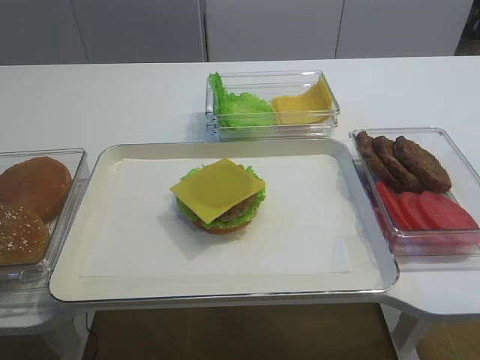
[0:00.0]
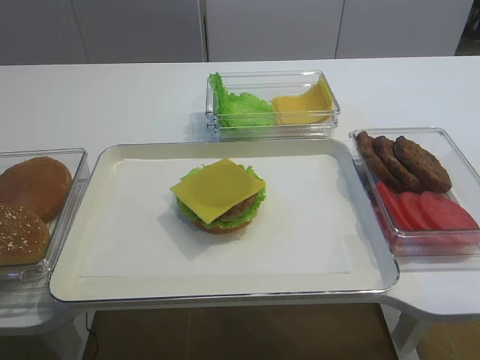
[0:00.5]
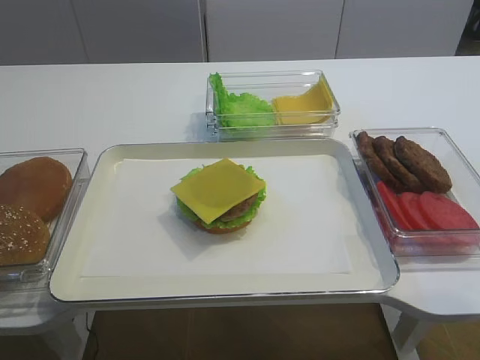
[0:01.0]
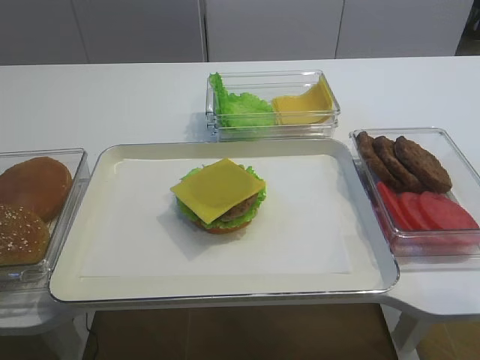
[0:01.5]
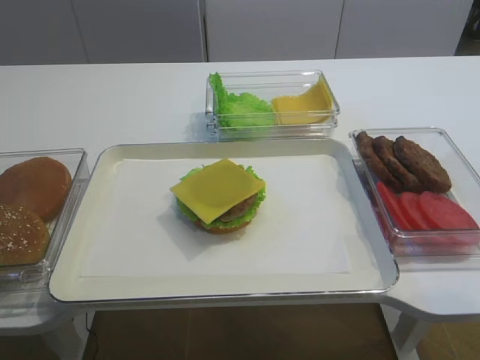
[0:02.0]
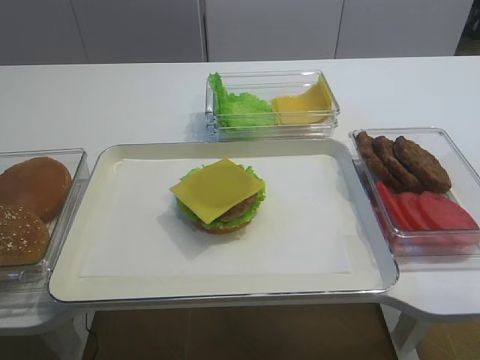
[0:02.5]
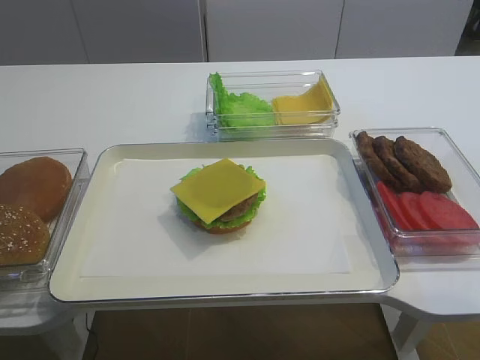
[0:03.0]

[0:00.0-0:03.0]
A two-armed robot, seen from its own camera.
0:01.5 to 0:03.0: The two grippers keep their place.

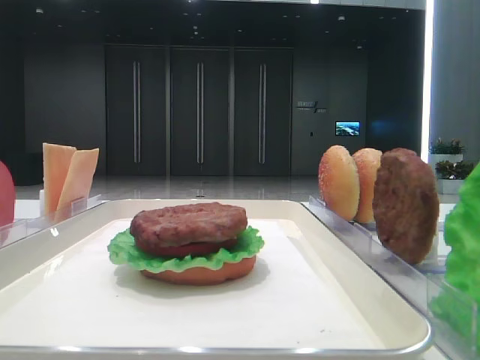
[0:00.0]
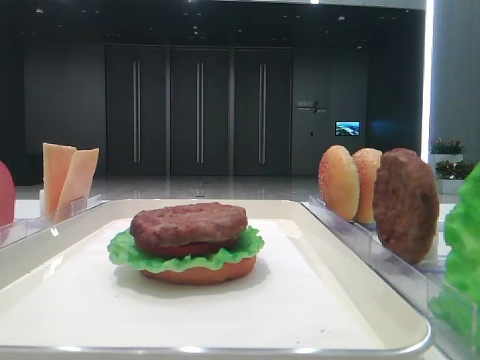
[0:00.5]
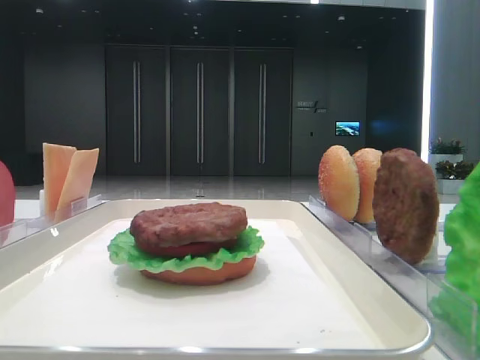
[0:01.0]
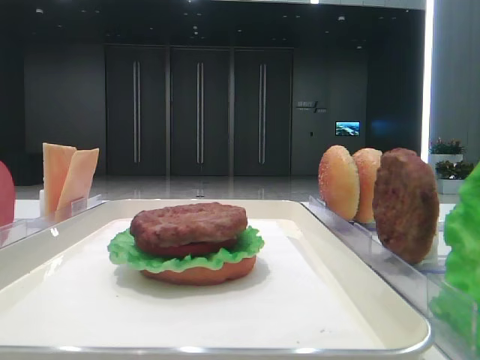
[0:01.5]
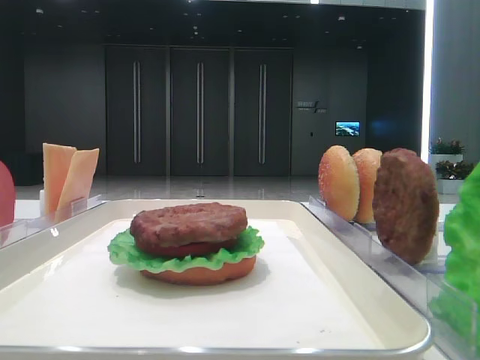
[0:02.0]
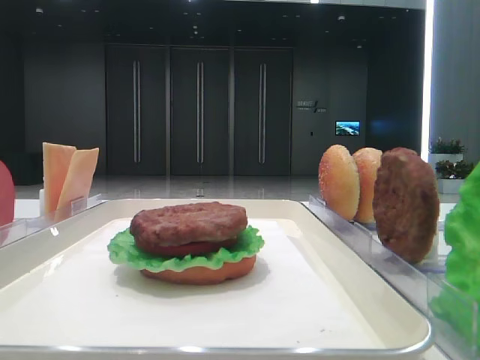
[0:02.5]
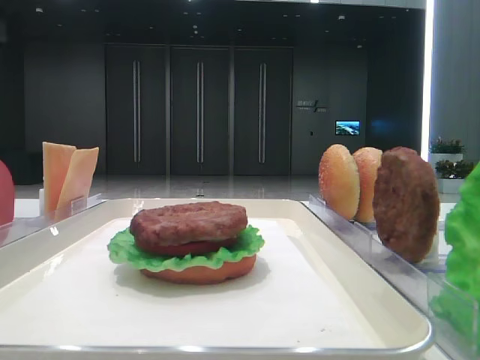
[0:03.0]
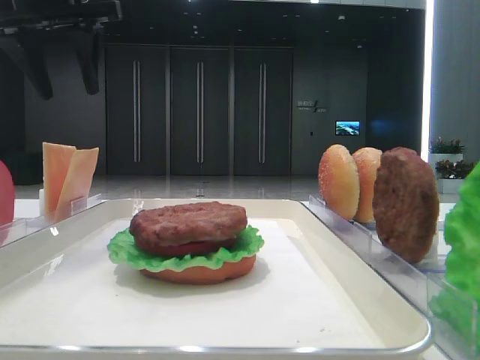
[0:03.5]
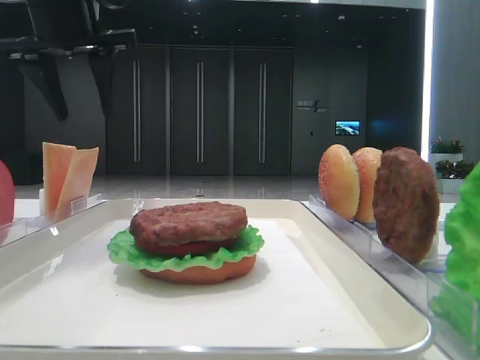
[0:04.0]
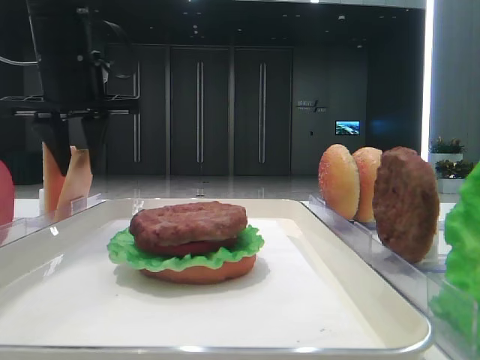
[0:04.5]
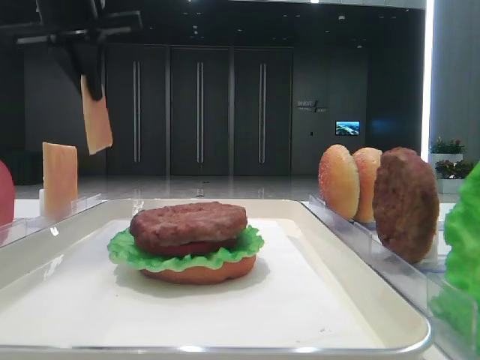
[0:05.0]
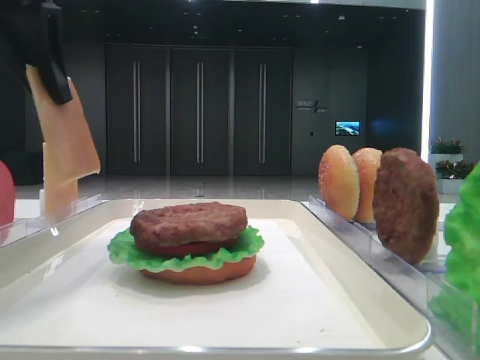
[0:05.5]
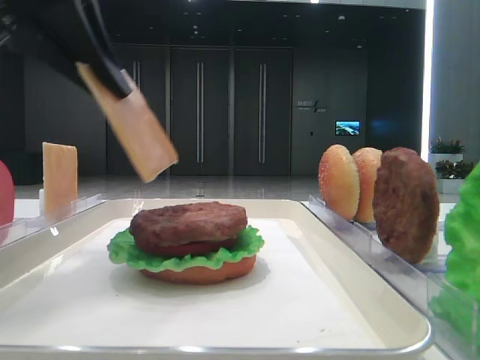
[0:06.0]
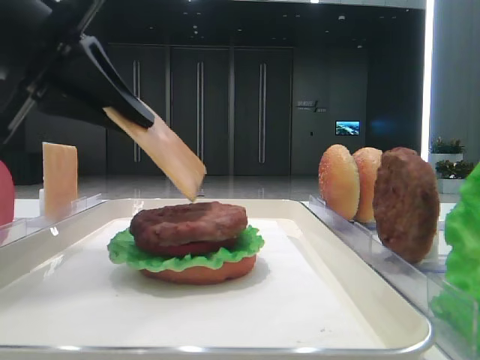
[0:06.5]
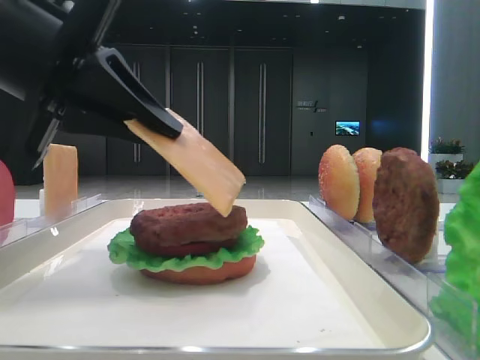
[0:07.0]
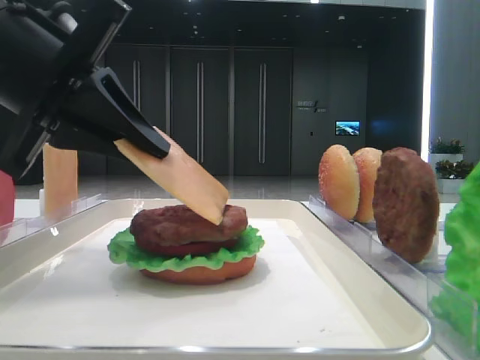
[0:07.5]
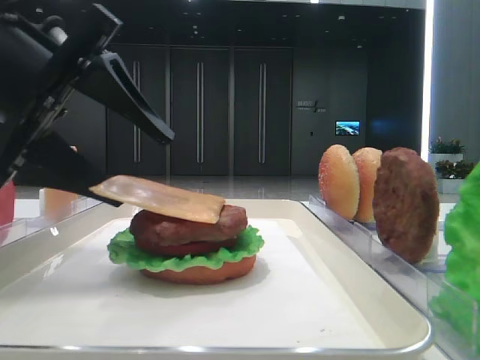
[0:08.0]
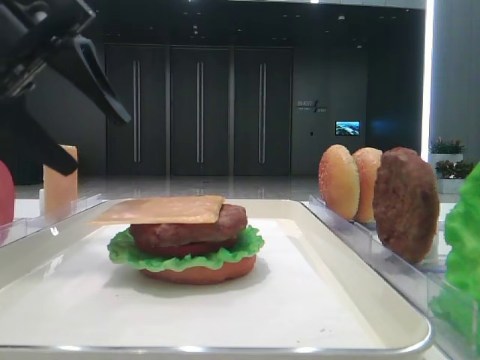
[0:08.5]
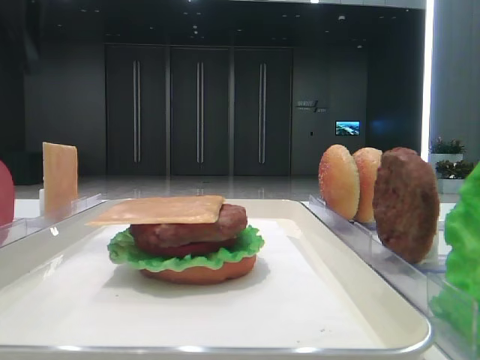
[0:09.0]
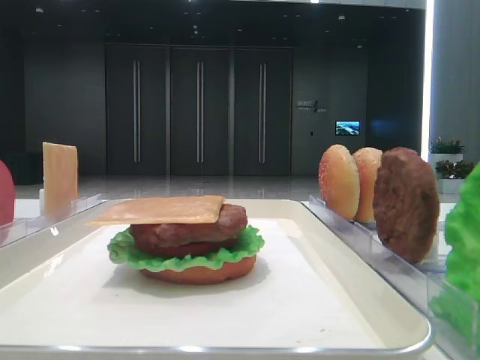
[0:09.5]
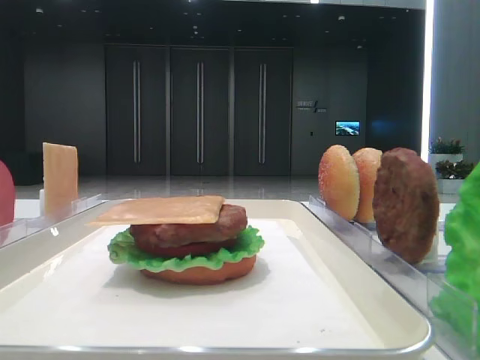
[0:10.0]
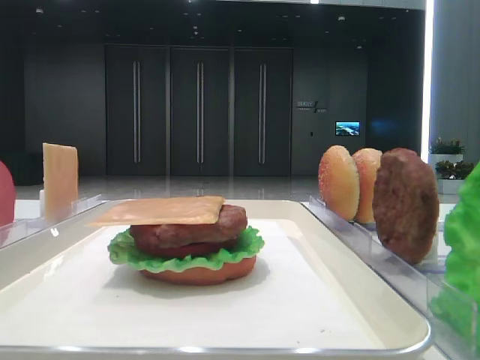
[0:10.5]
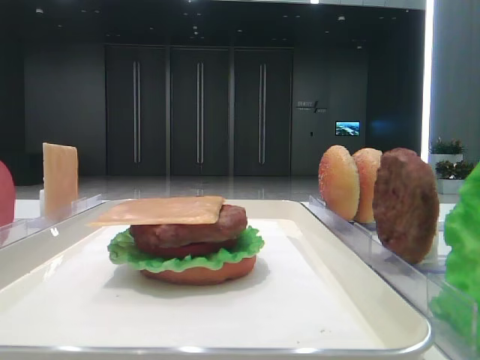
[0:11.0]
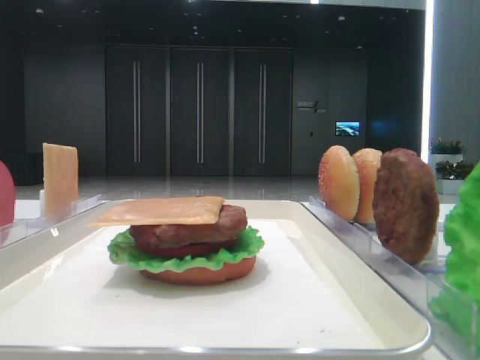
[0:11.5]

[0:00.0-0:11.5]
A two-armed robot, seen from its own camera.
Step, 0:00.0 to 0:04.5: Pick up the cheese slice with the left hand.
Step, 0:05.0 to 0:08.0: Place the cheese slice on the patty with the left hand.
0:02.0 to 0:04.0: The left gripper shifts about 40 cm forward.
0:04.0 to 0:06.0: The left gripper travels backward by about 15 cm, and closes up.
0:06.0 to 0:07.5: The left gripper moves downward, approximately 10 cm.
0:07.5 to 0:09.5: The left gripper is displaced to the left, upward and forward by about 25 cm, and opens its fingers.

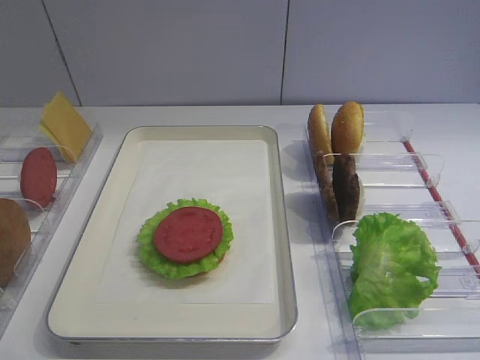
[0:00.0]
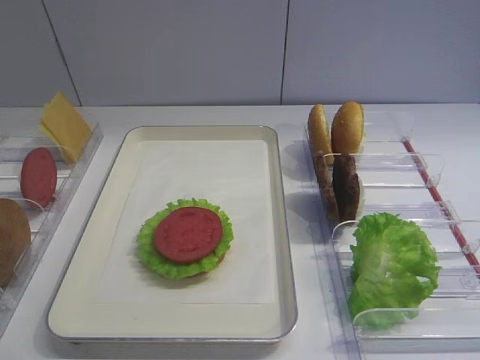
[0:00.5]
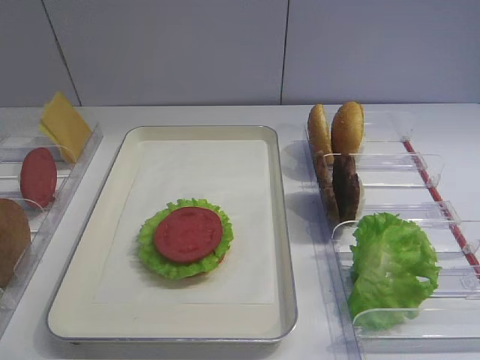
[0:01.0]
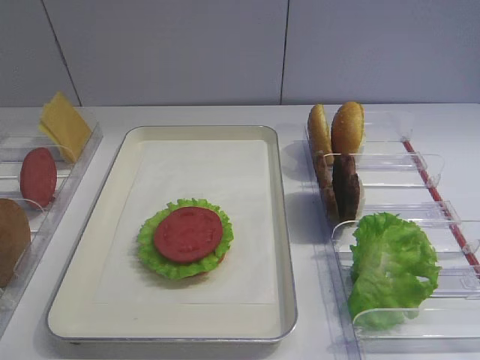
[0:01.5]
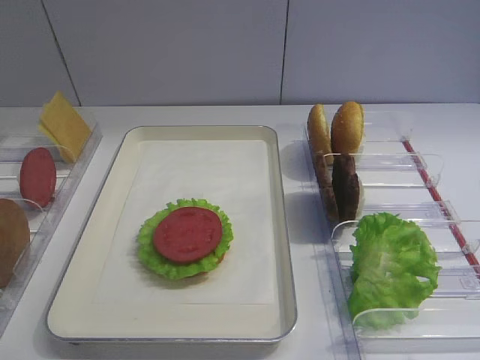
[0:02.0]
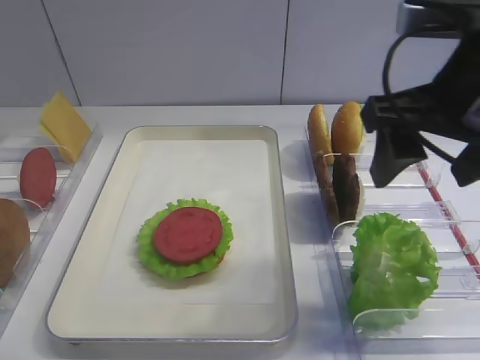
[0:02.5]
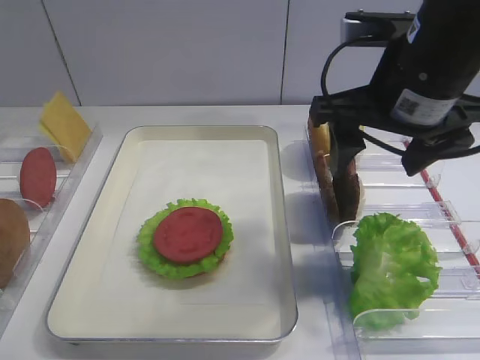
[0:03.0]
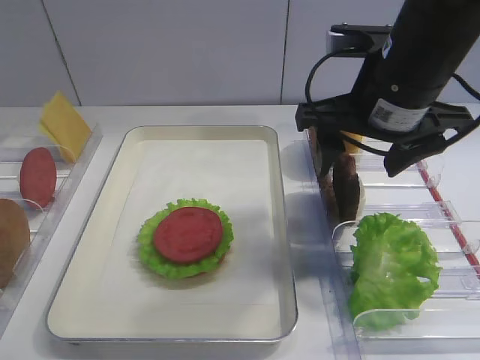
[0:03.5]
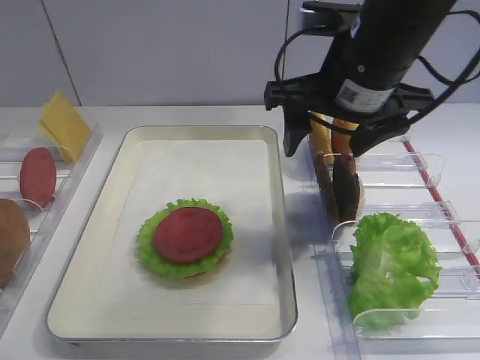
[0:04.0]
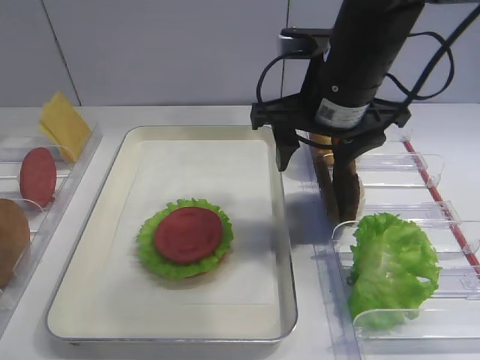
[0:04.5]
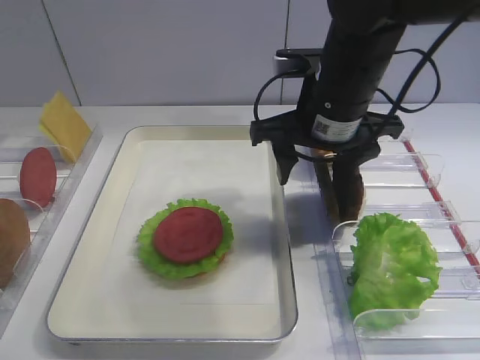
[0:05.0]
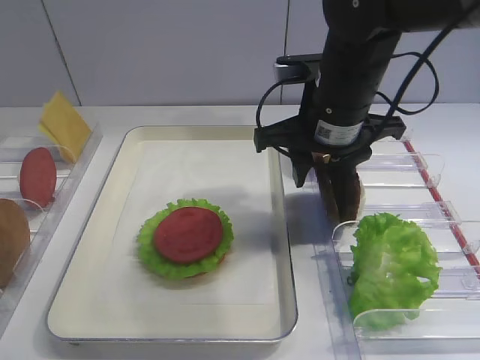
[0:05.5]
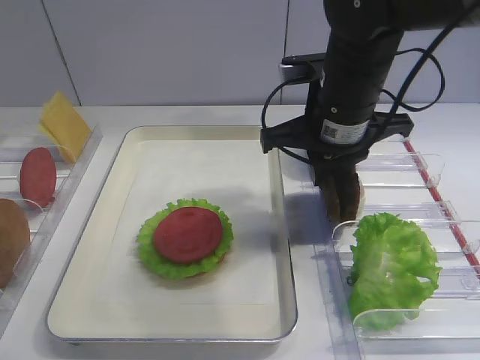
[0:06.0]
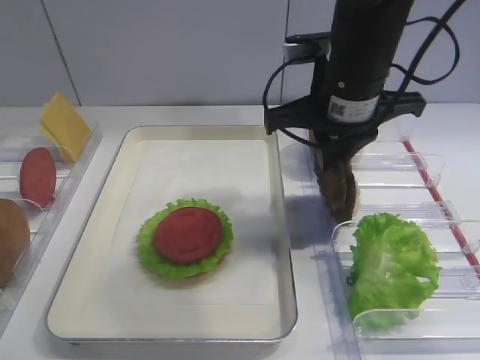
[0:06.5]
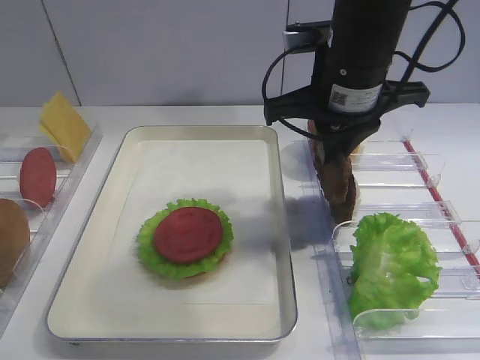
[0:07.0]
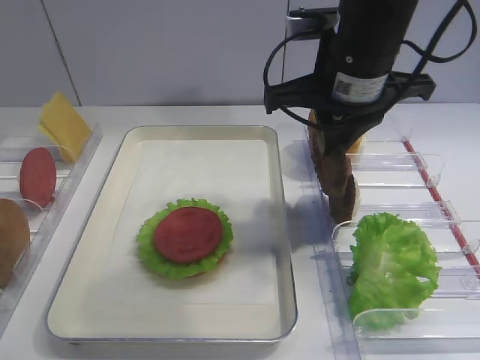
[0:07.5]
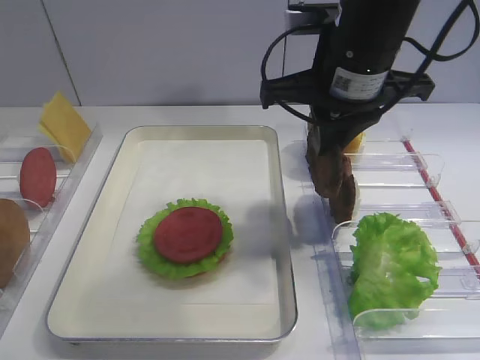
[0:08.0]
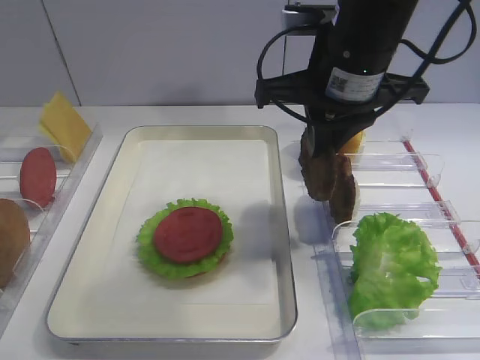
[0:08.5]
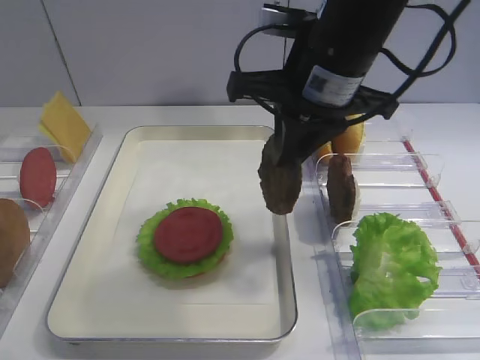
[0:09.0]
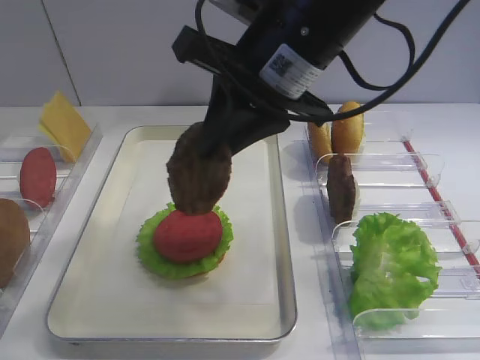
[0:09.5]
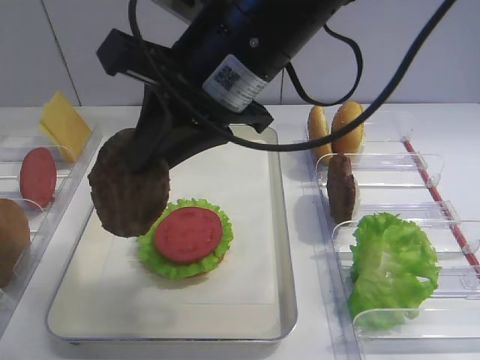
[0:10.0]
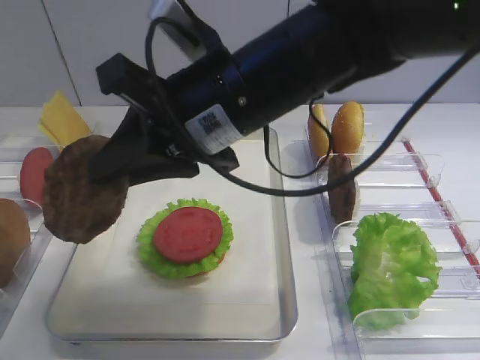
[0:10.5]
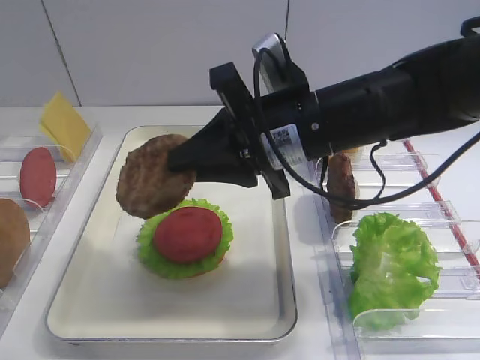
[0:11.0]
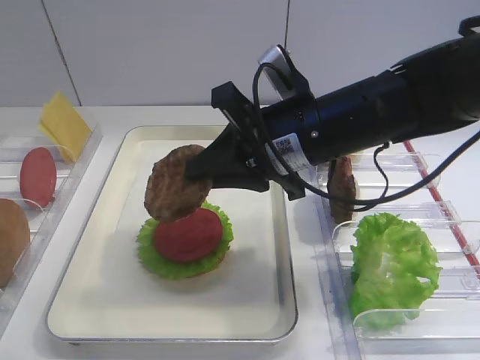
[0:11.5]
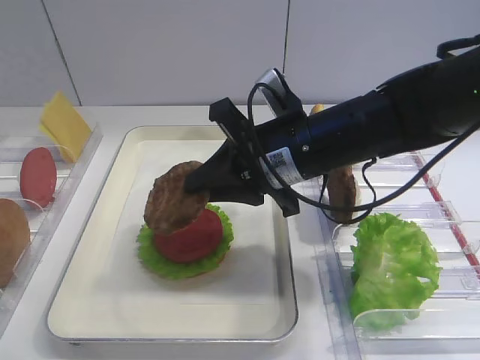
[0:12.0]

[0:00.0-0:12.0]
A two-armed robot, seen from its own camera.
Step, 0:00.0 to 0:08.5: Pick up the cutlet with the right gripper.
0:02.0 to 0:04.0: The right gripper heads forward and to the left, covering roughly 20 cm.
0:04.0 to 0:06.0: The right gripper is displaced downward by some 5 cm, and closes up.
0:06.0 to 0:08.0: The right gripper is displaced upward by about 5 cm.
0:08.0 to 0:10.0: The right gripper is displaced to the left and backward by approximately 10 cm.
0:10.0 to 0:12.0: The right gripper shifts about 15 cm downward and to the right.
